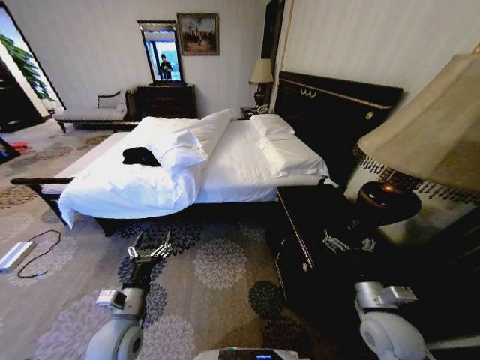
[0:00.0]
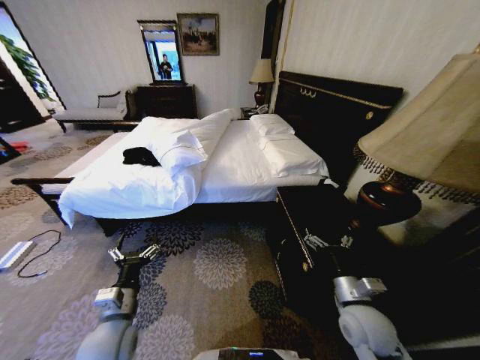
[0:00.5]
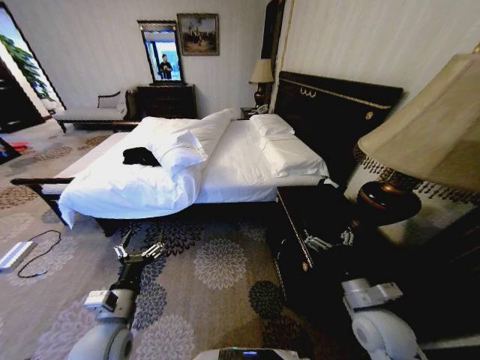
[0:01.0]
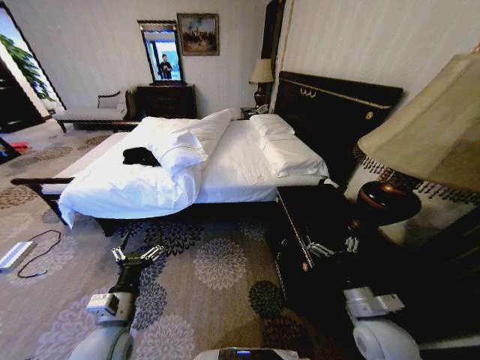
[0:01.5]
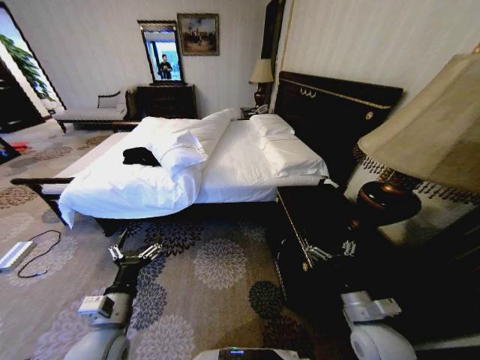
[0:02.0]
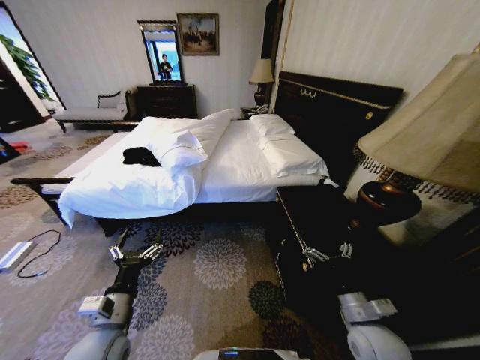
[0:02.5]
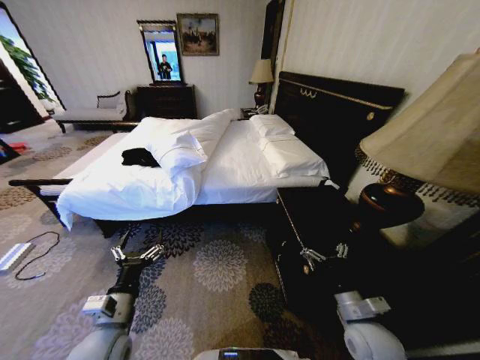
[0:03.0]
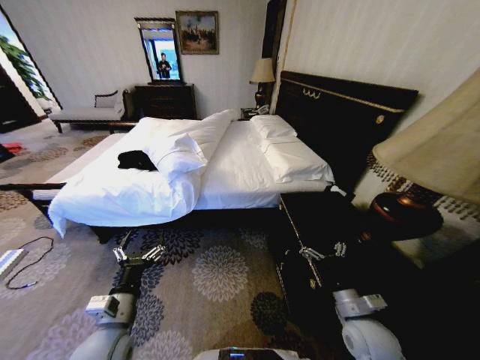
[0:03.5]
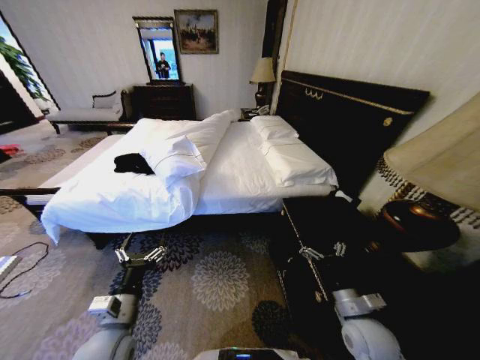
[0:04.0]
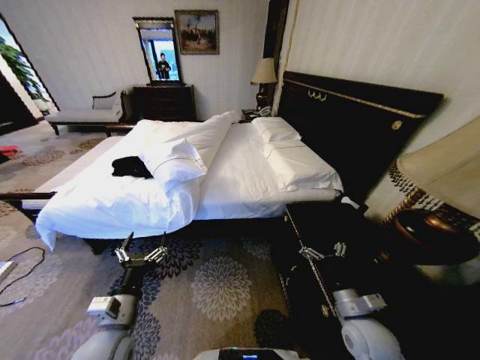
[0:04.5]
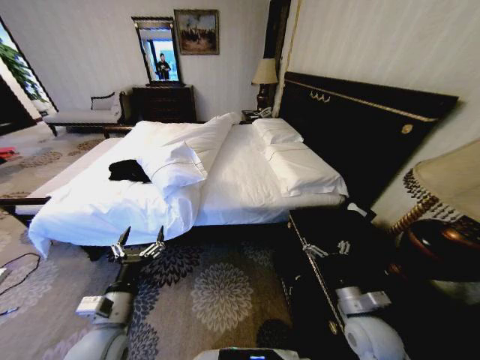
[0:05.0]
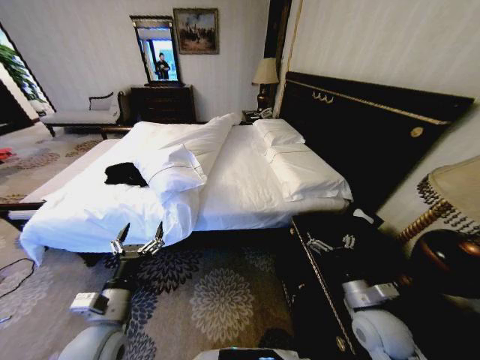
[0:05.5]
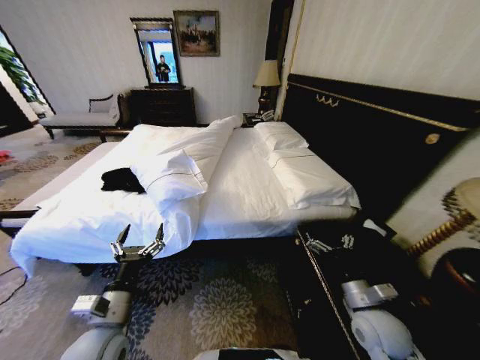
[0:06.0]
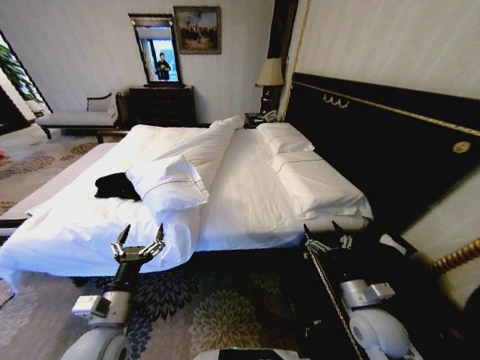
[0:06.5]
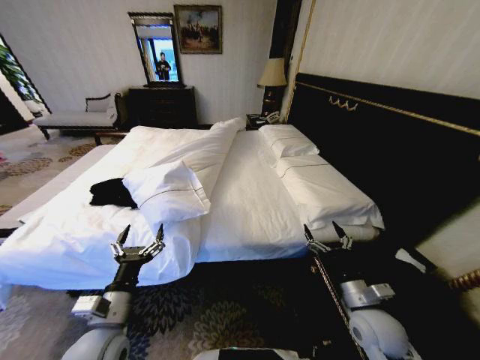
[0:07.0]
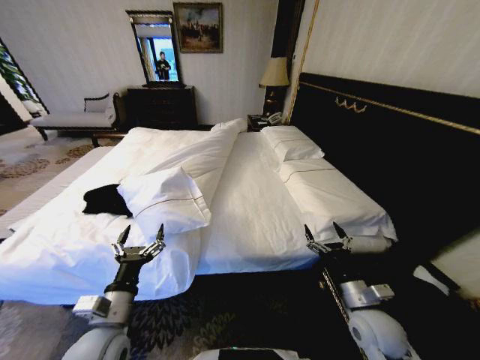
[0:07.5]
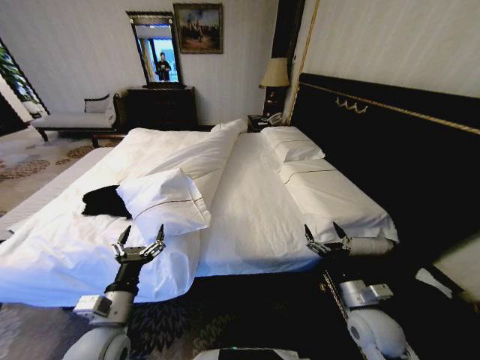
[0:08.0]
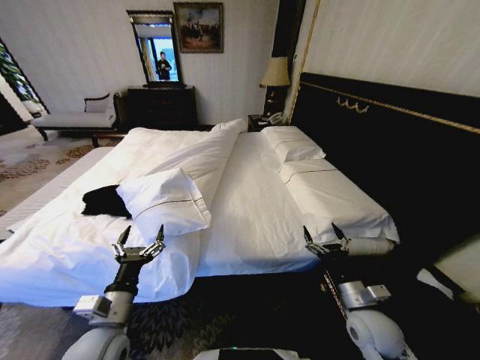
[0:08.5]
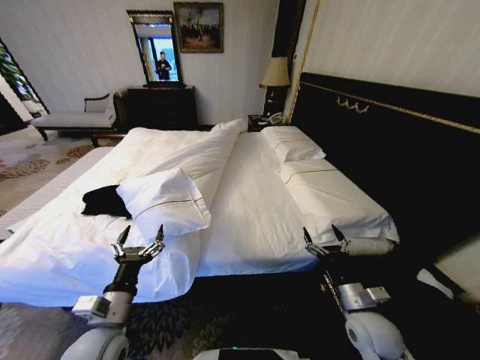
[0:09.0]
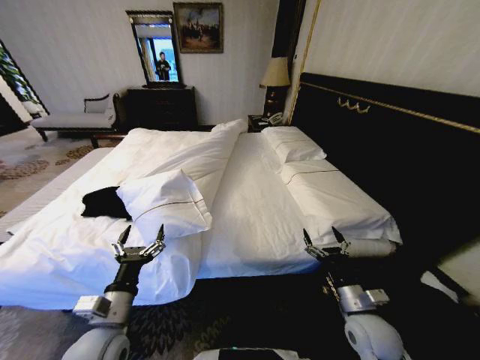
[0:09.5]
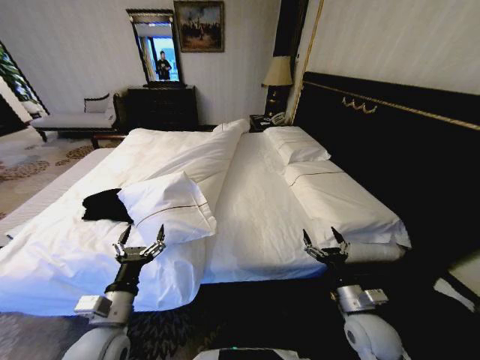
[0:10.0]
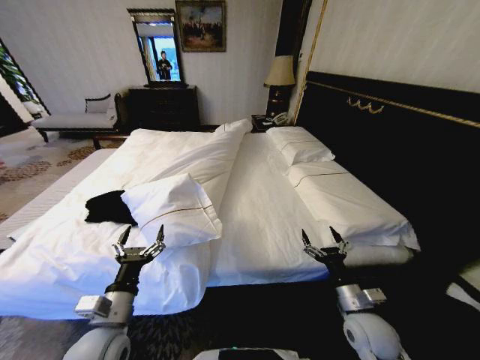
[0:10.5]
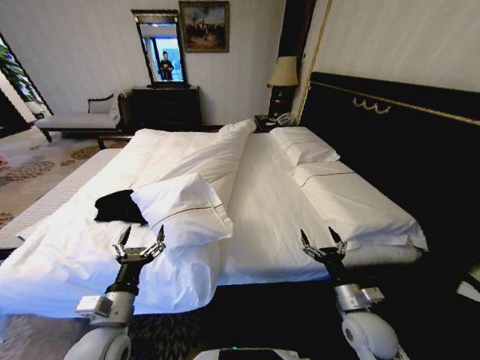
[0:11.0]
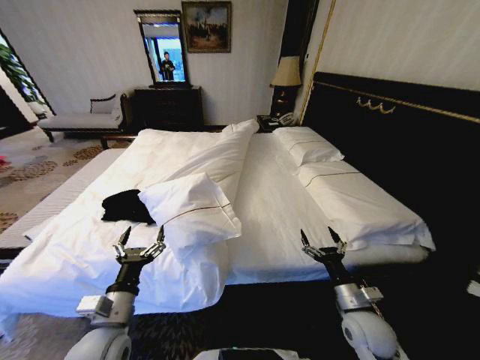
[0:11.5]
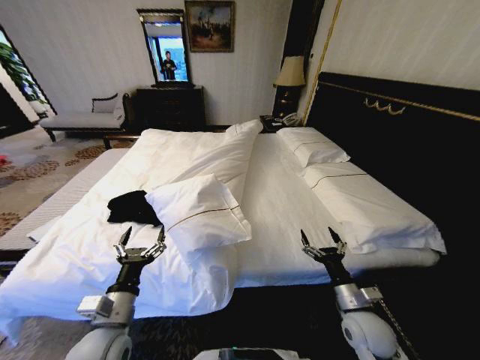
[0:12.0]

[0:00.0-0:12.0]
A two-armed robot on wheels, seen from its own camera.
Task of the whole recording: Fold the clothes on the bed.
0:08.0 to 0:10.0: The grippers move only a little.

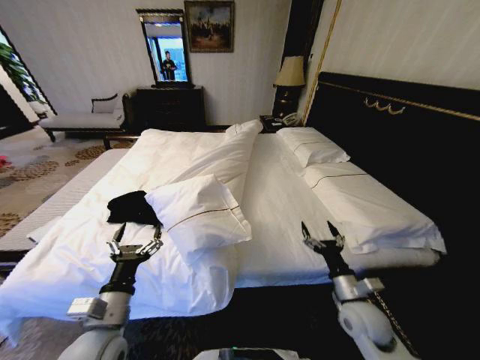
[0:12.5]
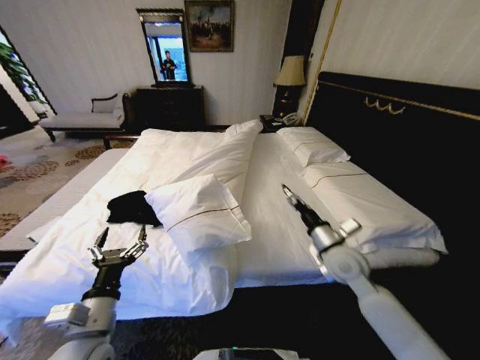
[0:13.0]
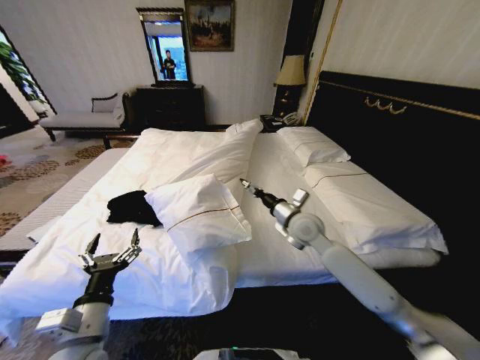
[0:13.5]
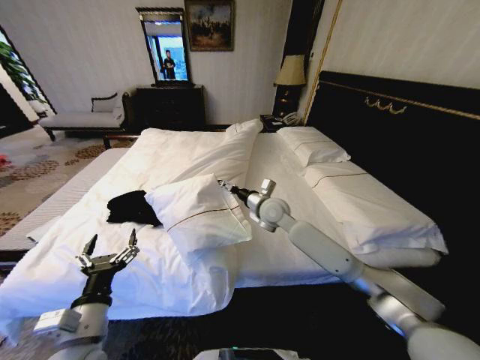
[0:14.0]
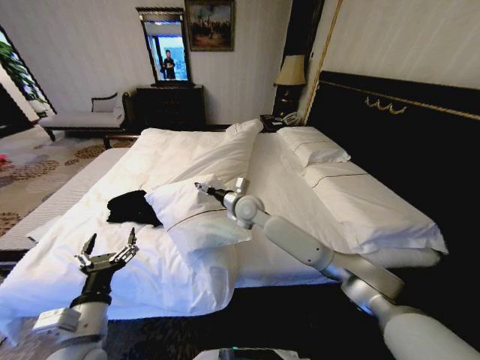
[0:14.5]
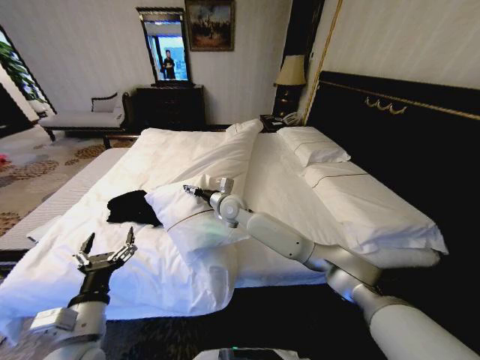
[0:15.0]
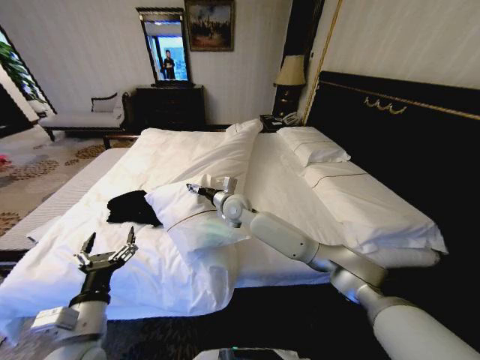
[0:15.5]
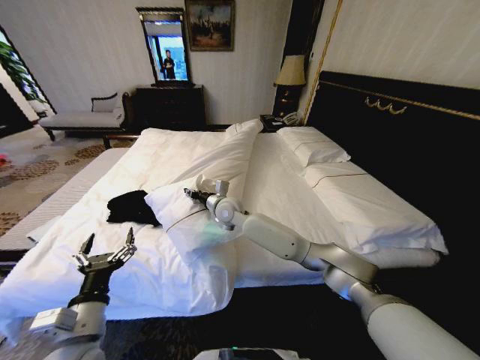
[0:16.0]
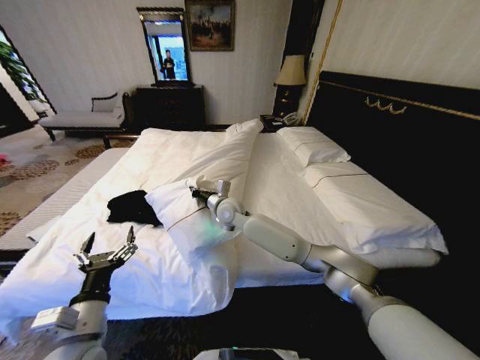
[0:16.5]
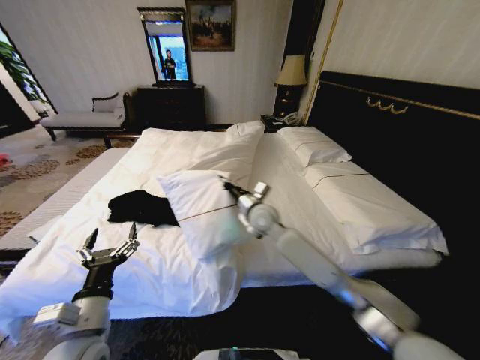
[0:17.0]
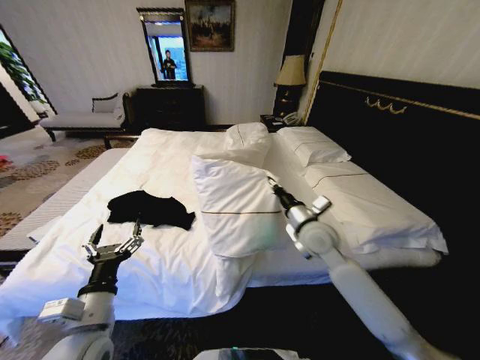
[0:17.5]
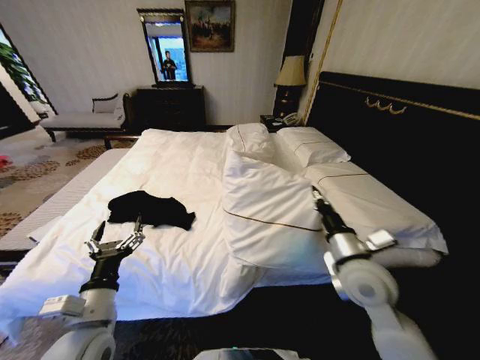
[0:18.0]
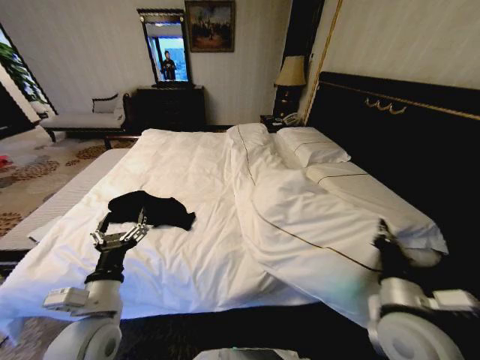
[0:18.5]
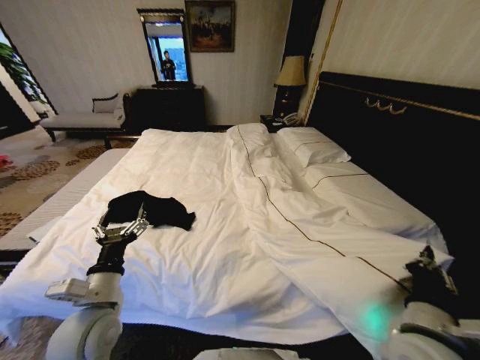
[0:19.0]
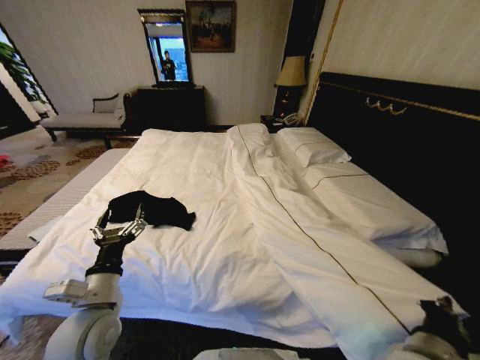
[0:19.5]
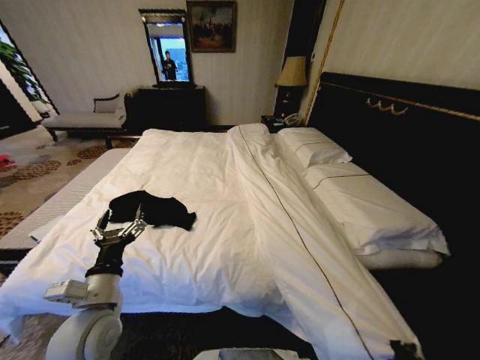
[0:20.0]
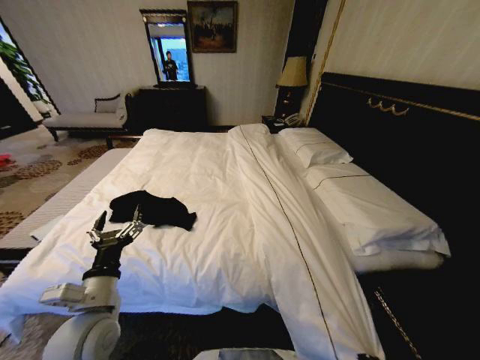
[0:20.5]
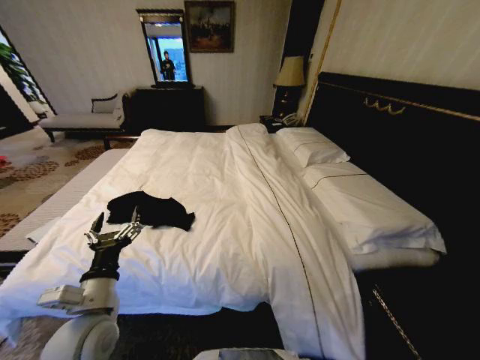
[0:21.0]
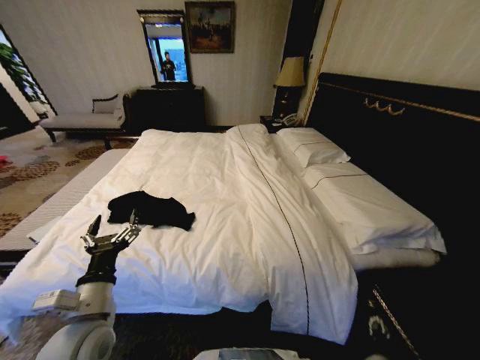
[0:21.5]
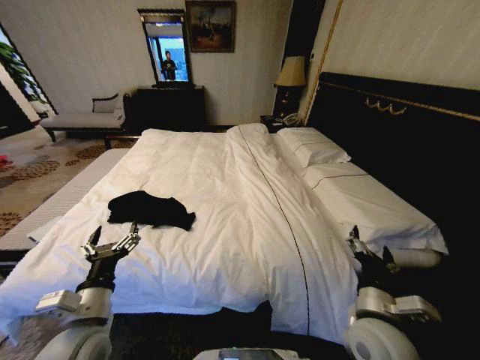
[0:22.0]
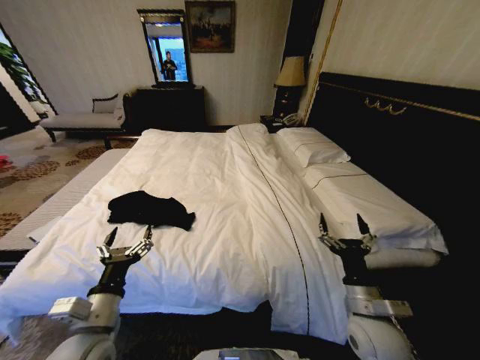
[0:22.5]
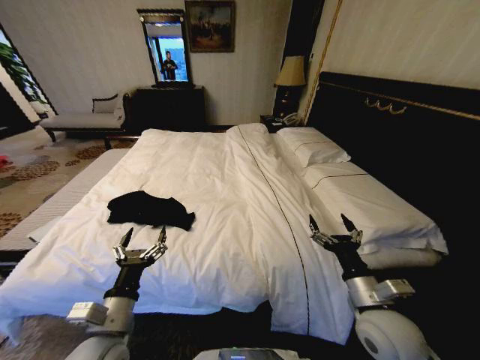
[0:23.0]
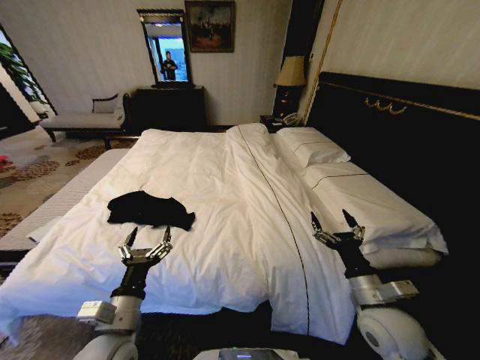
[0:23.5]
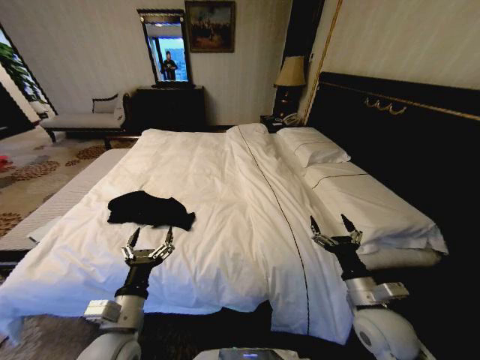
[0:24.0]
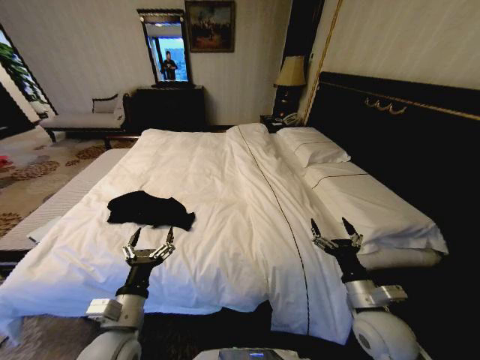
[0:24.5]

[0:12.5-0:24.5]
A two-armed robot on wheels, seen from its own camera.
Task of the whole recording: Fold the clothes on the bed.
0:12.5 to 0:14.5: The right gripper travels to the left, forward and upward by roughly 40 cm.
0:14.5 to 0:16.5: The right gripper shifts some 5 cm to the left, and closes its fingers.
0:16.5 to 0:18.5: The right gripper shifts about 50 cm backward and to the right.
0:18.5 to 0:20.5: The right gripper is displaced downward and backward by roughly 25 cm.
0:20.5 to 0:22.5: The right gripper is displaced upward and forward by roughly 15 cm, and opens up.
0:22.5 to 0:24.5: The grippers move only a little.

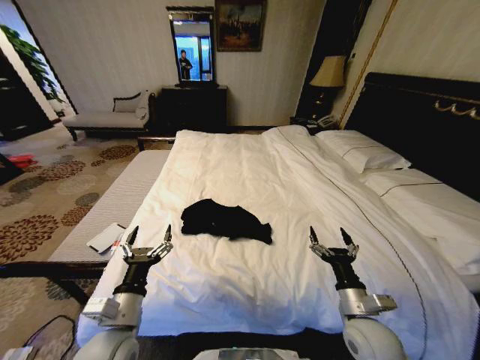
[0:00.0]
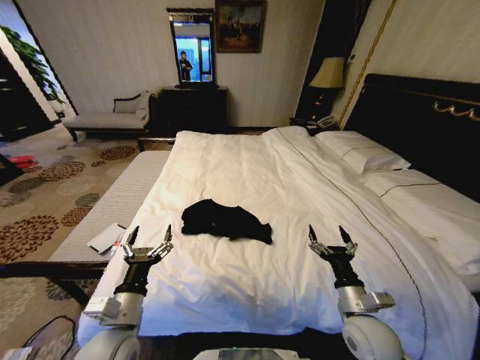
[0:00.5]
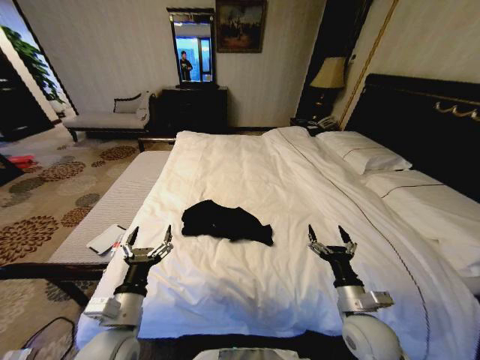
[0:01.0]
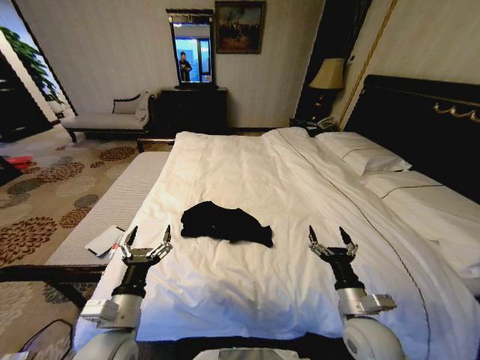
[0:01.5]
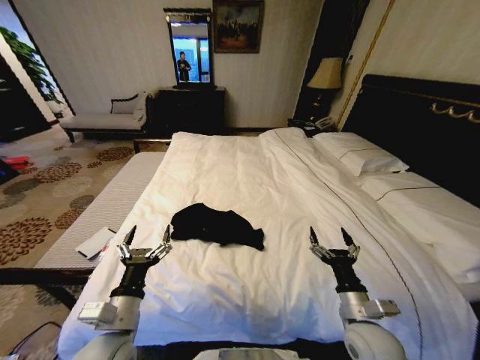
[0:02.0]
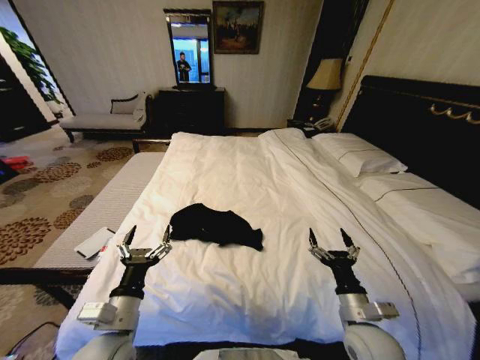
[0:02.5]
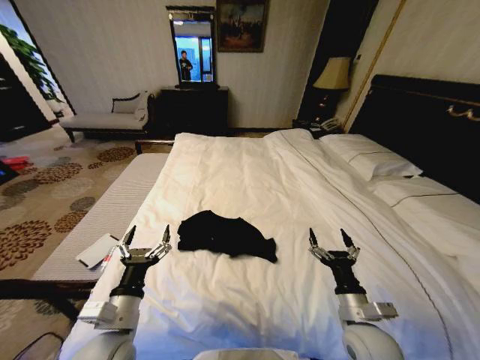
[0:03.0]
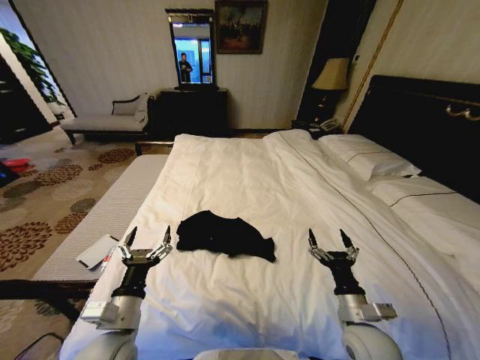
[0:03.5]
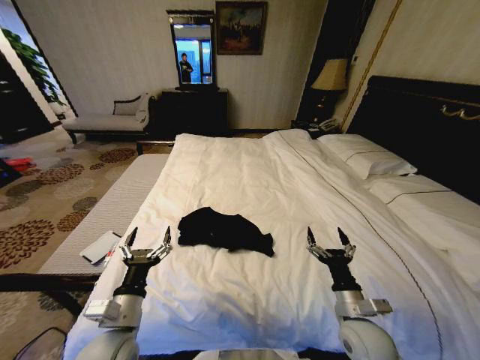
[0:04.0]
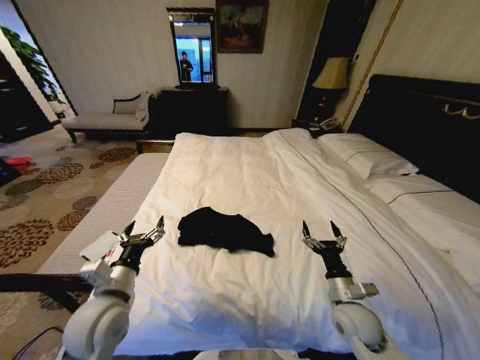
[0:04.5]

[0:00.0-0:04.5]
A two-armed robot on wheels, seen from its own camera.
Task of the whole recording: Fold the clothes on the bed.
0:02.0 to 0:04.5: The right gripper shifts by approximately 5 cm. Meanwhile the left gripper is displaced forward by about 5 cm.
